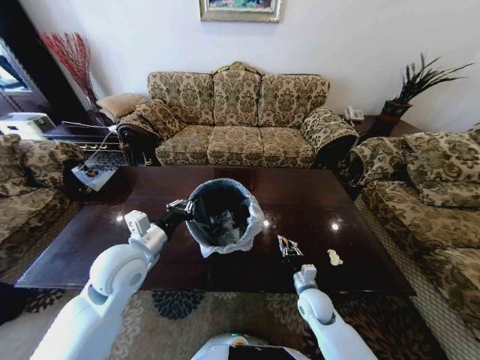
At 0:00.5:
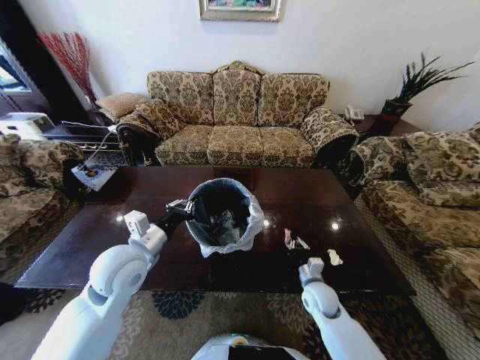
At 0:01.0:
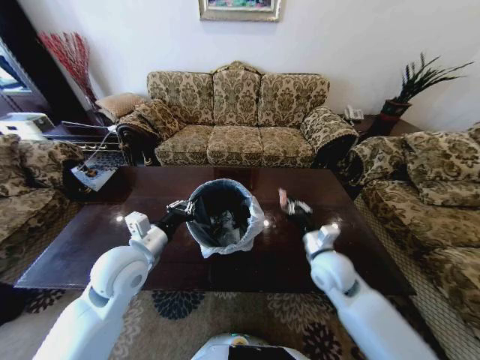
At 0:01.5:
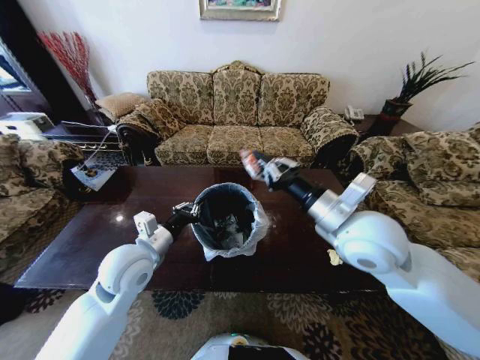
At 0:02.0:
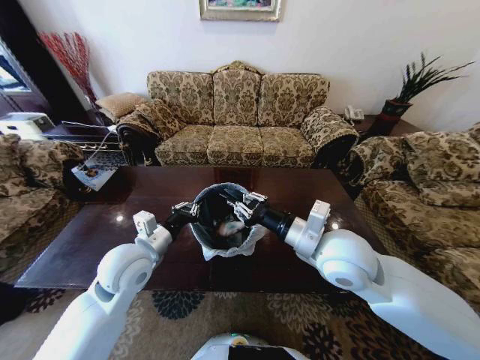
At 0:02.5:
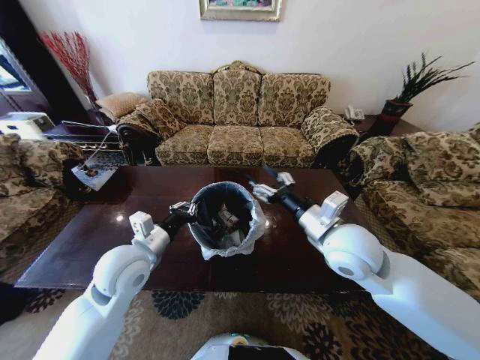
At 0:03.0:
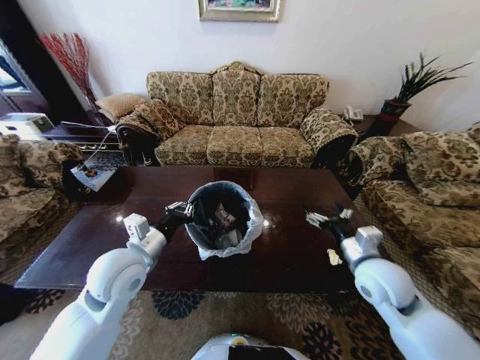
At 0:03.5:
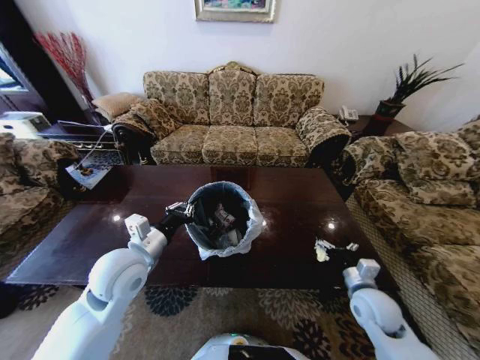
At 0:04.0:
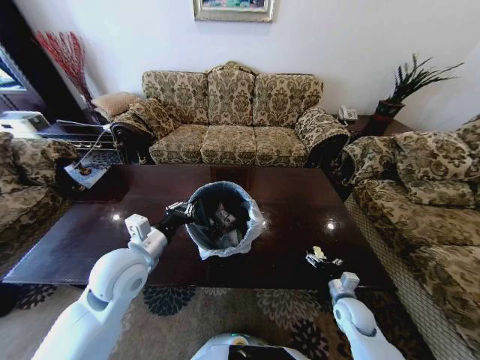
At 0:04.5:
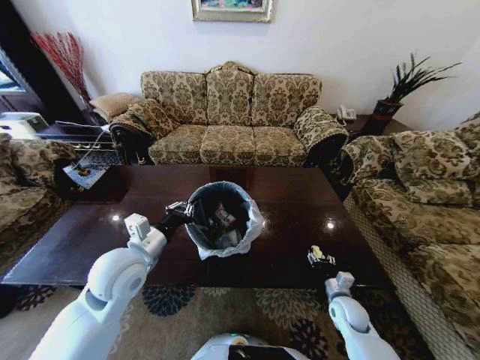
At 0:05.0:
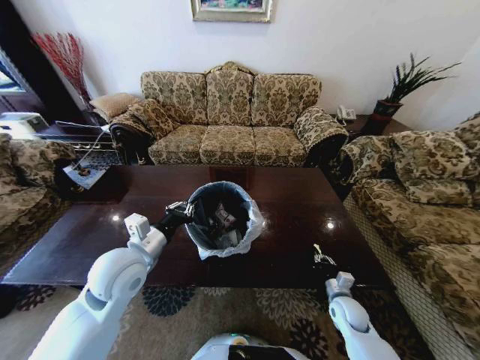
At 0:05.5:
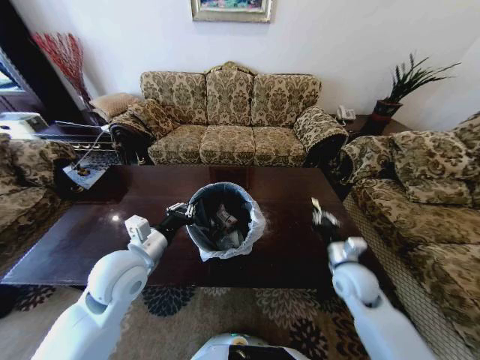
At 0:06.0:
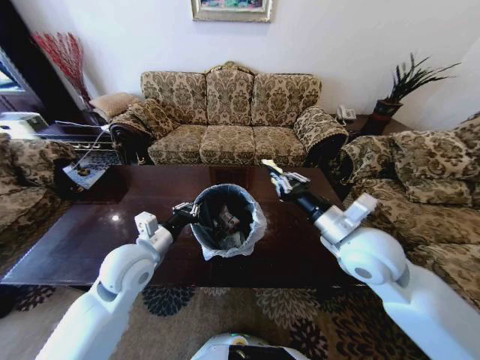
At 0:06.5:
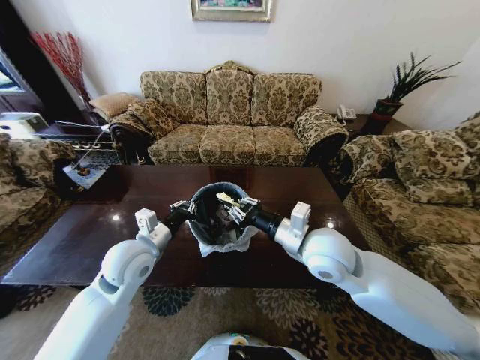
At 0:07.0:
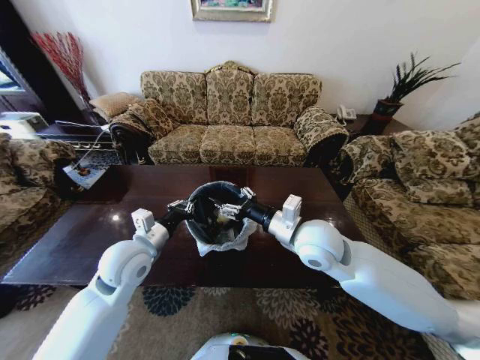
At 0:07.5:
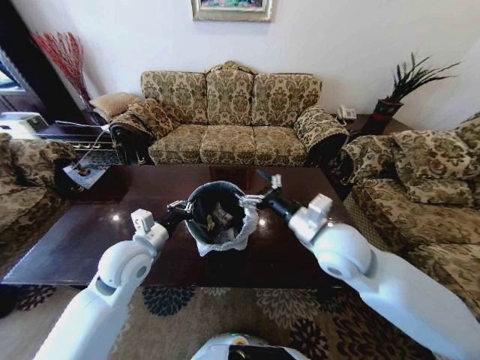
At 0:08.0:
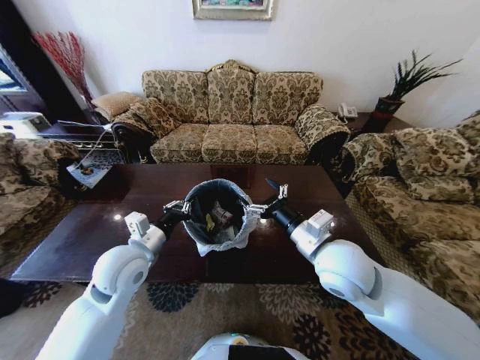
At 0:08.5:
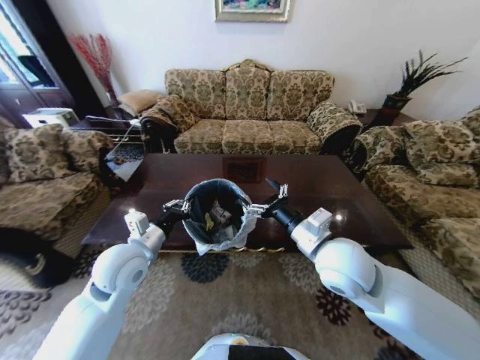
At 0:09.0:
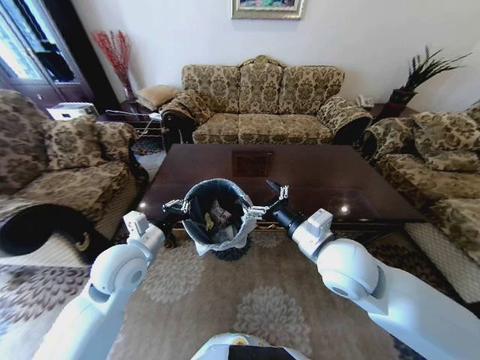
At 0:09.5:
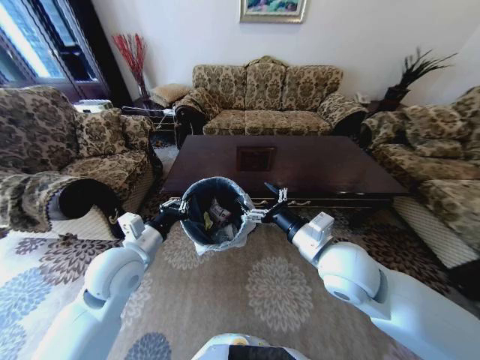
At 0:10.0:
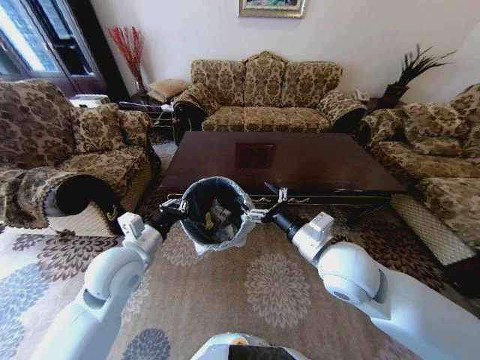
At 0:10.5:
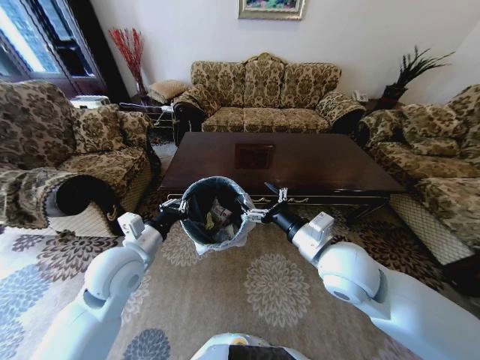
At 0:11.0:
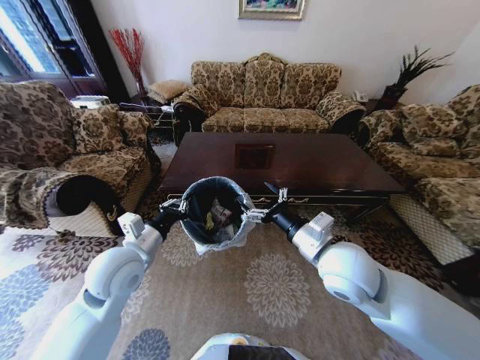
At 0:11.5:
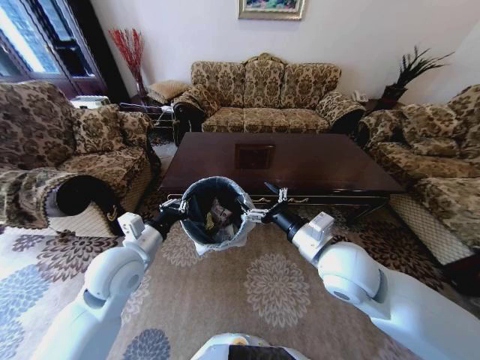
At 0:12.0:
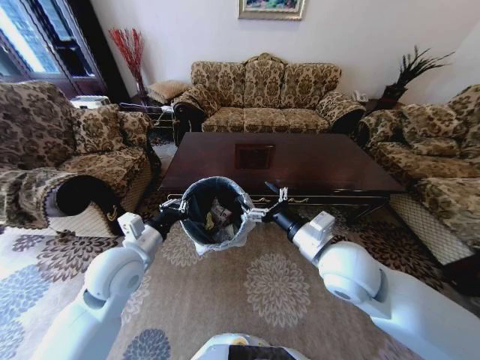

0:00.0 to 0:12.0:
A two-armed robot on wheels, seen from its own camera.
Task of the whole recording: Move to the front of the table and place the trash on the table into the trash bin.
0:00.0 to 0:02.0: The right gripper is displaced upward by approximately 35 cm.
0:02.0 to 0:04.0: The right gripper heads downward and to the right, covering roughly 35 cm, and opens up.
0:04.0 to 0:06.0: The right gripper heads upward, covering roughly 35 cm, and closes its fingers.
0:06.0 to 0:08.0: The right gripper opens its fingers.
0:10.0 to 0:12.0: The two grippers keep their place.

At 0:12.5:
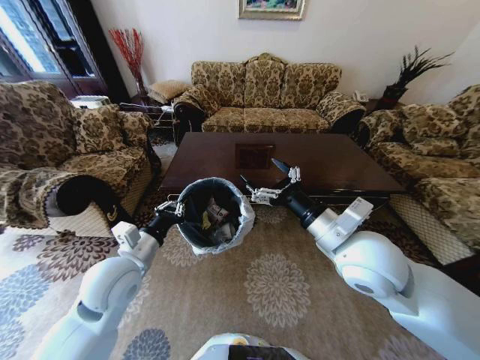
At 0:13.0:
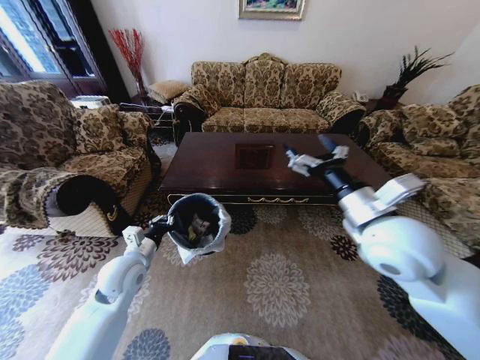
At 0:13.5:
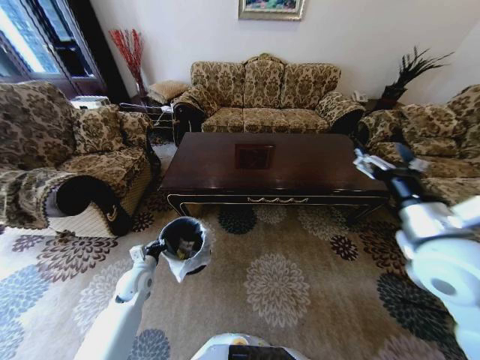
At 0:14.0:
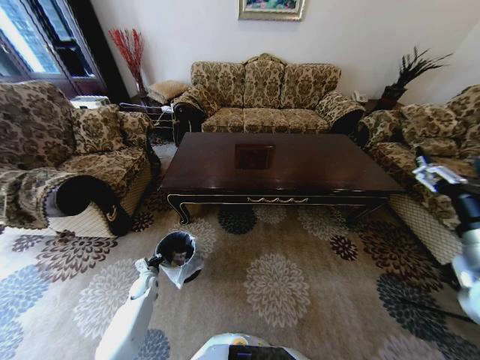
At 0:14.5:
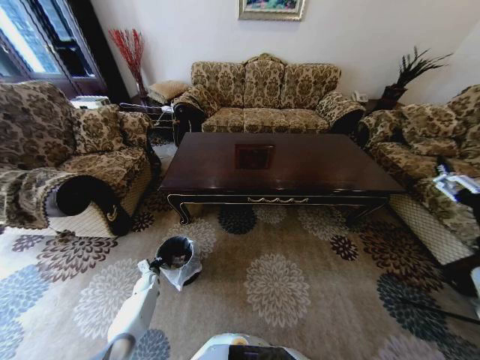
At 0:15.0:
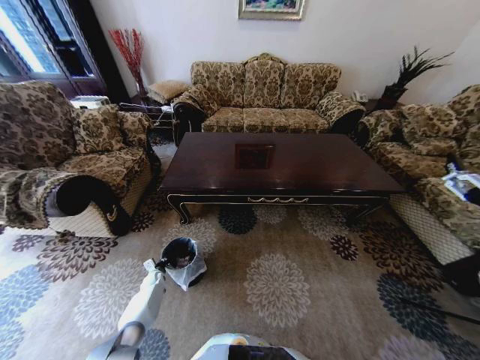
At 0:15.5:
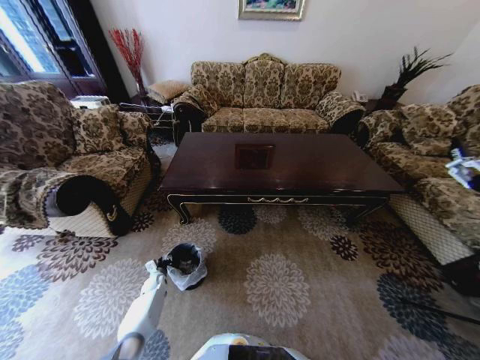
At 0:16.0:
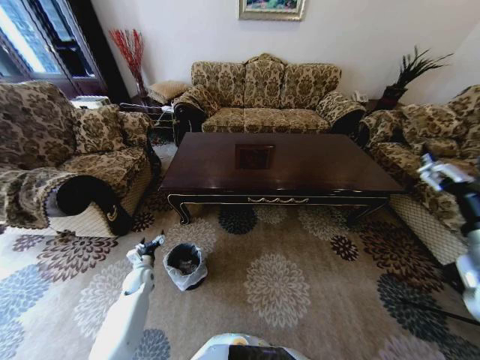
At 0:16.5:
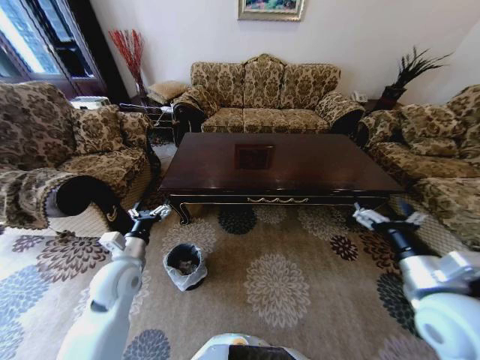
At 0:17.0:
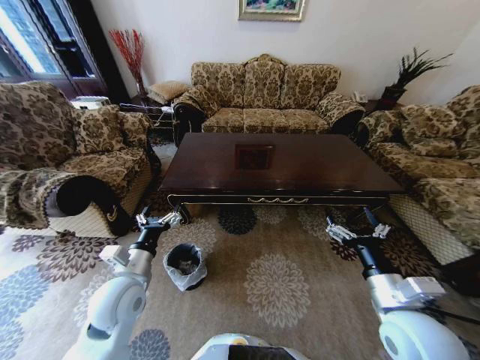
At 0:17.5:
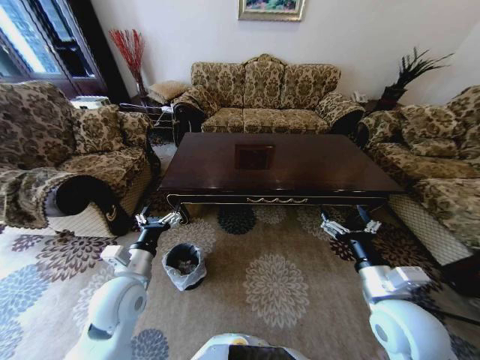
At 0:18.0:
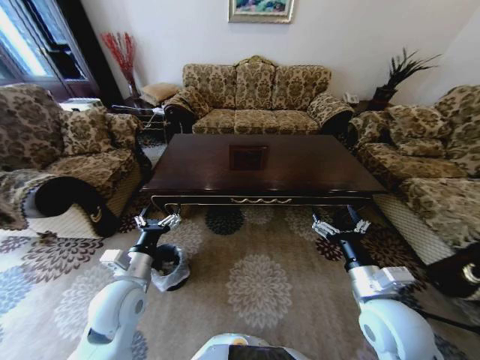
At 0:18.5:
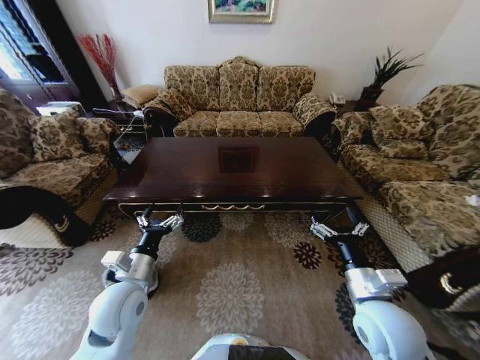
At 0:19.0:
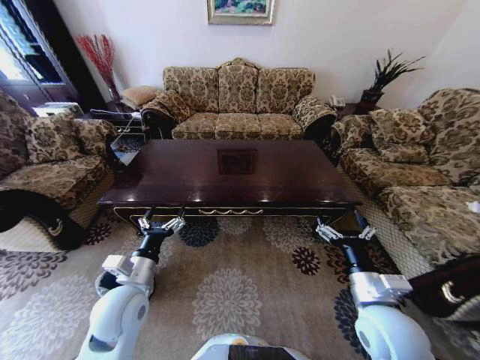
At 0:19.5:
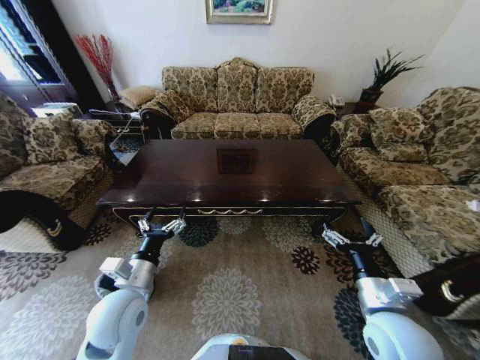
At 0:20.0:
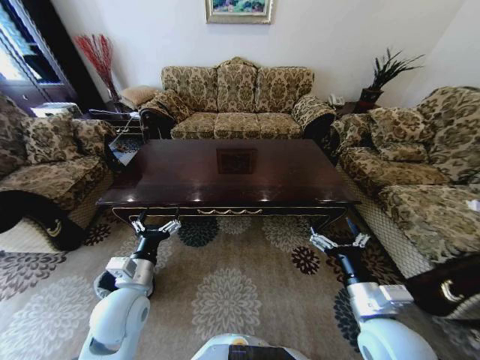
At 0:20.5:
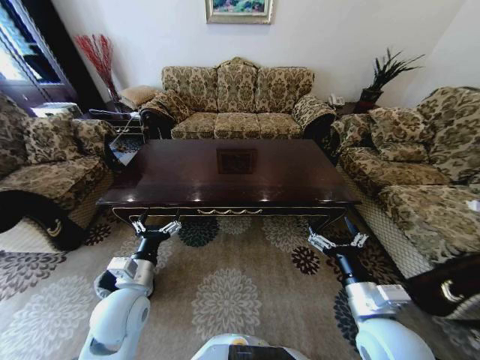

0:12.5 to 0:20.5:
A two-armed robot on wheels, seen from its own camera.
Task of the whole recording: Move to the front of the table and place the trash on the table into the trash bin.
0:12.5 to 0:14.5: The right gripper heads to the right and backward, covering some 20 cm, while the left gripper heads downward, covering about 40 cm.
0:14.5 to 0:16.5: The left gripper moves upward, about 35 cm, and opens up, while the right gripper shifts about 10 cm downward and to the left.
0:16.5 to 0:18.5: The right gripper moves downward and to the left, approximately 10 cm.
